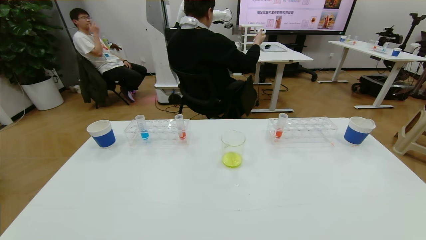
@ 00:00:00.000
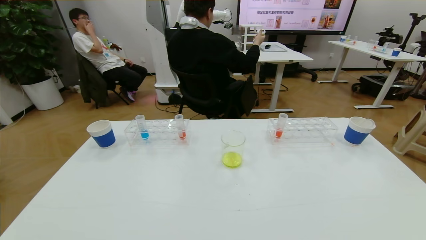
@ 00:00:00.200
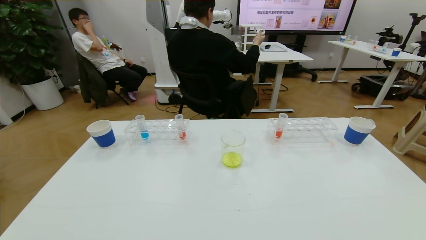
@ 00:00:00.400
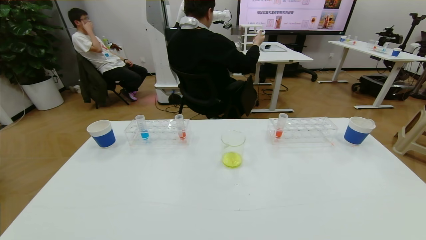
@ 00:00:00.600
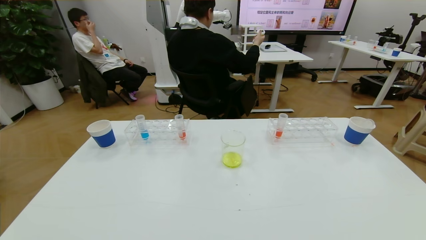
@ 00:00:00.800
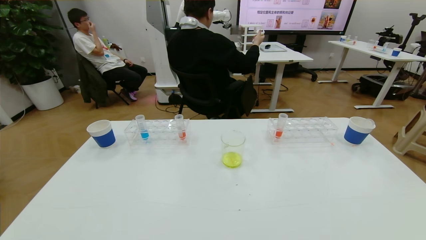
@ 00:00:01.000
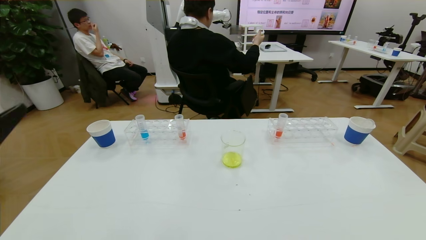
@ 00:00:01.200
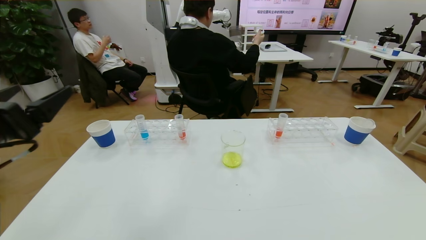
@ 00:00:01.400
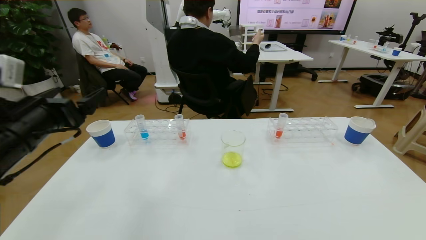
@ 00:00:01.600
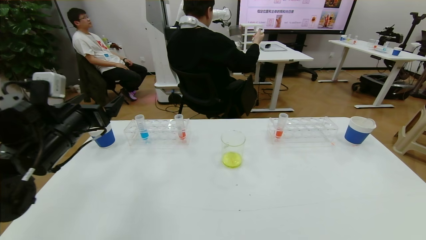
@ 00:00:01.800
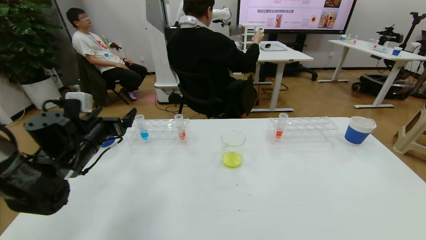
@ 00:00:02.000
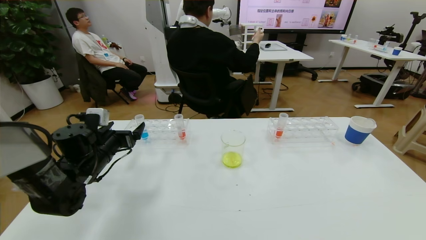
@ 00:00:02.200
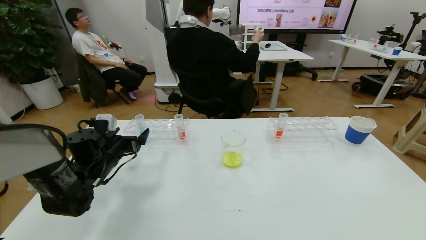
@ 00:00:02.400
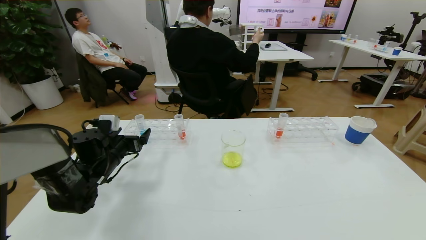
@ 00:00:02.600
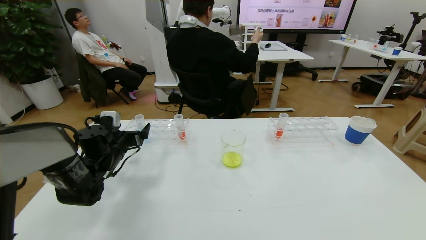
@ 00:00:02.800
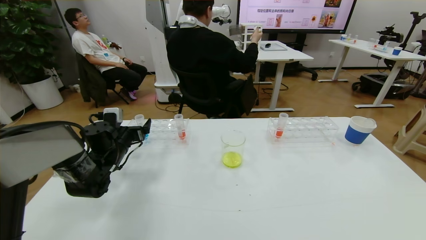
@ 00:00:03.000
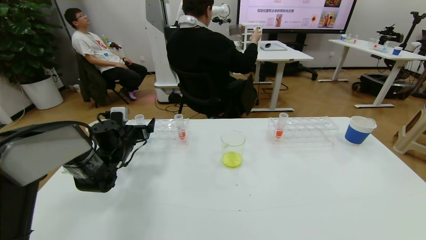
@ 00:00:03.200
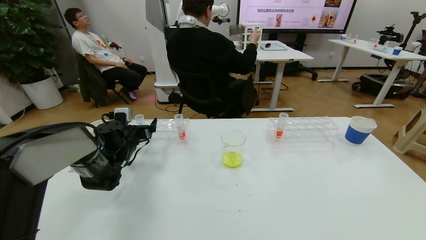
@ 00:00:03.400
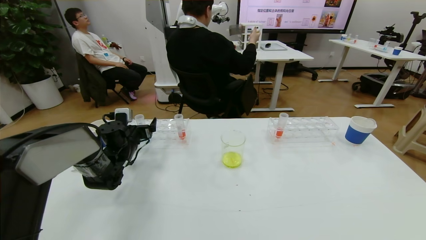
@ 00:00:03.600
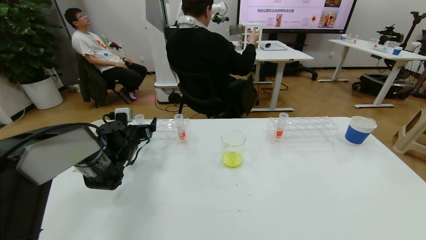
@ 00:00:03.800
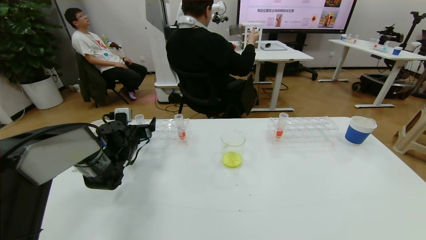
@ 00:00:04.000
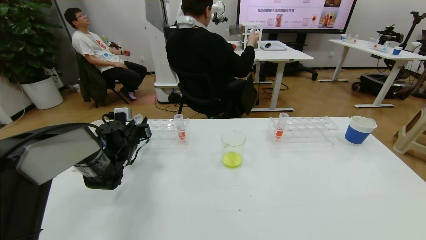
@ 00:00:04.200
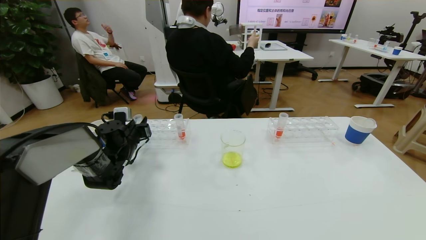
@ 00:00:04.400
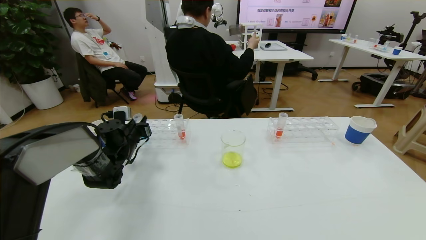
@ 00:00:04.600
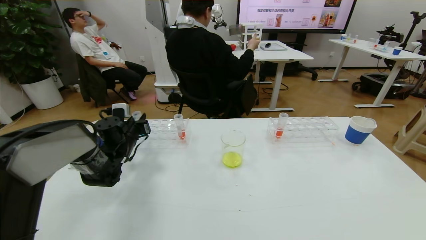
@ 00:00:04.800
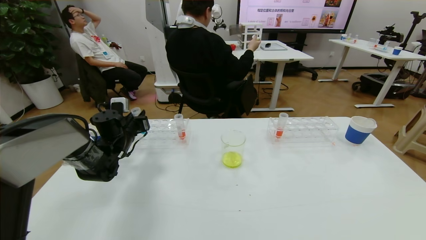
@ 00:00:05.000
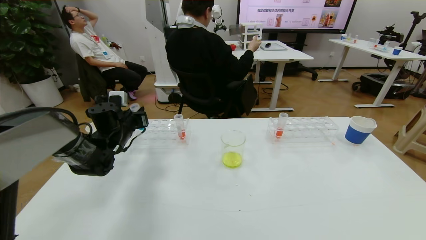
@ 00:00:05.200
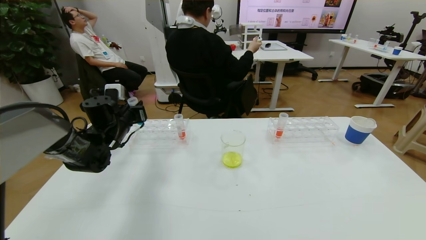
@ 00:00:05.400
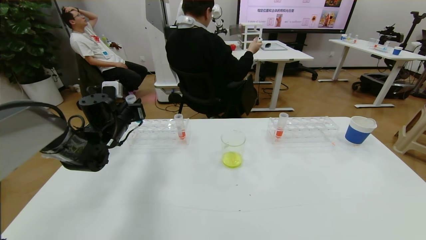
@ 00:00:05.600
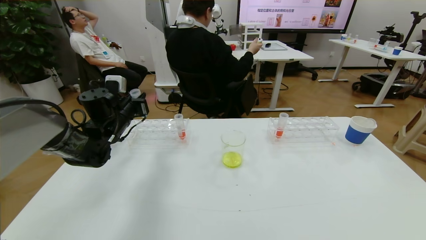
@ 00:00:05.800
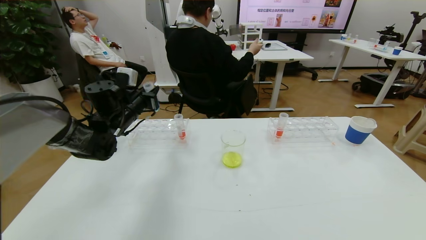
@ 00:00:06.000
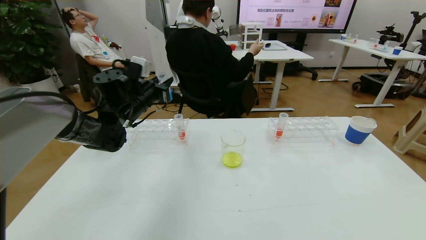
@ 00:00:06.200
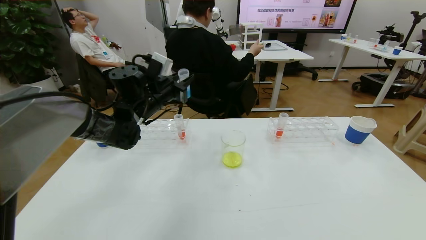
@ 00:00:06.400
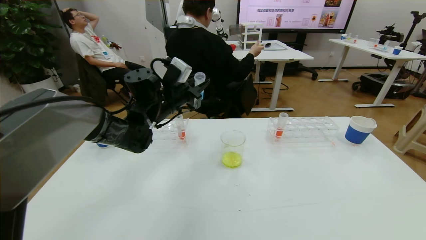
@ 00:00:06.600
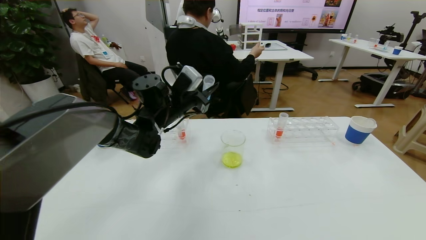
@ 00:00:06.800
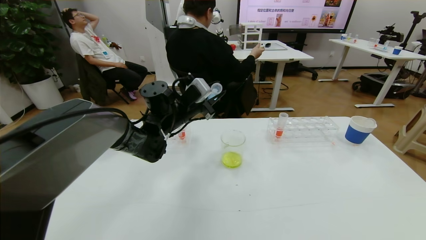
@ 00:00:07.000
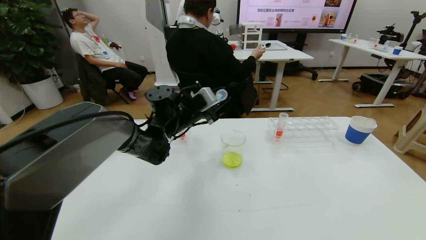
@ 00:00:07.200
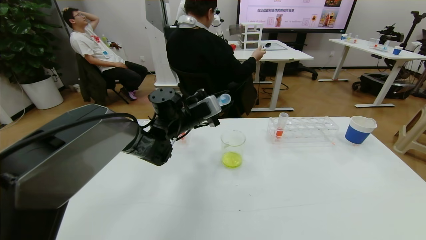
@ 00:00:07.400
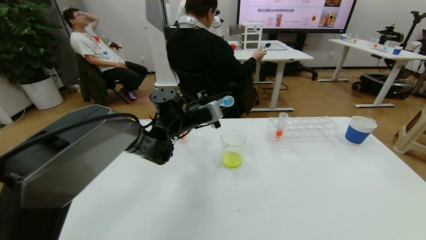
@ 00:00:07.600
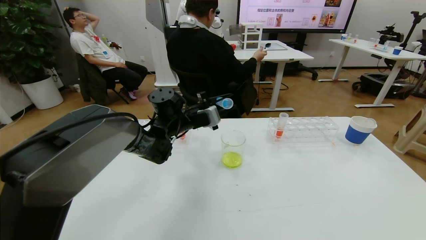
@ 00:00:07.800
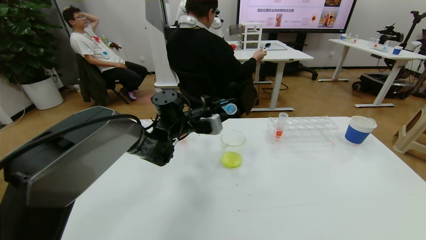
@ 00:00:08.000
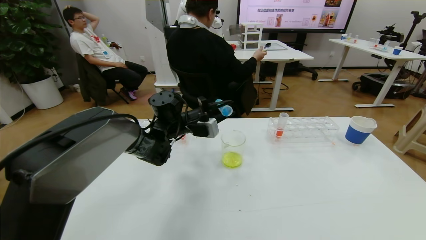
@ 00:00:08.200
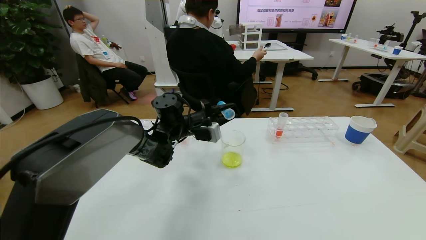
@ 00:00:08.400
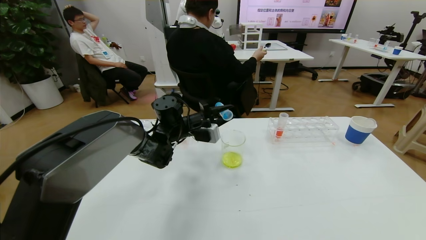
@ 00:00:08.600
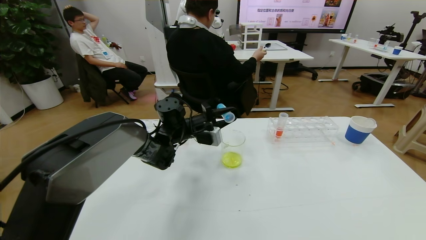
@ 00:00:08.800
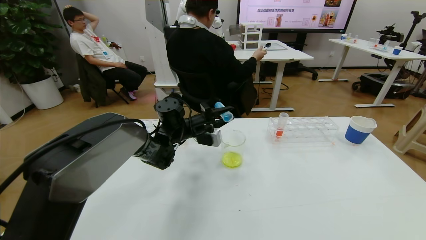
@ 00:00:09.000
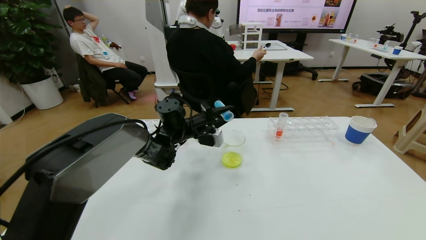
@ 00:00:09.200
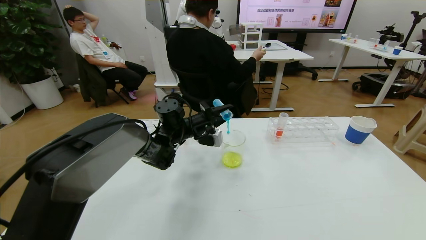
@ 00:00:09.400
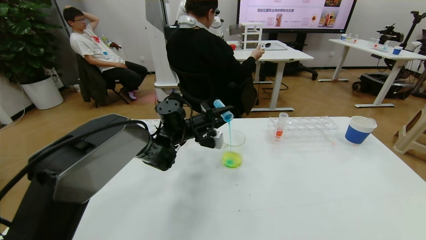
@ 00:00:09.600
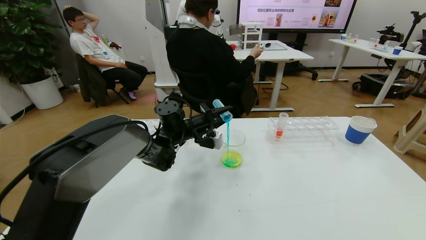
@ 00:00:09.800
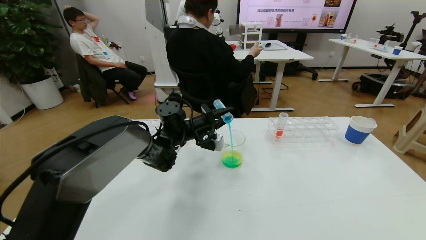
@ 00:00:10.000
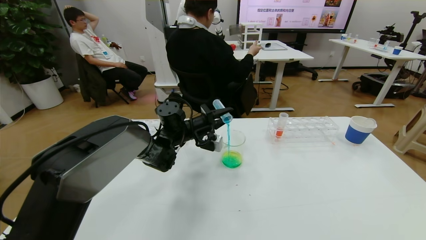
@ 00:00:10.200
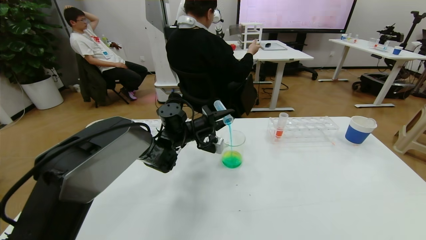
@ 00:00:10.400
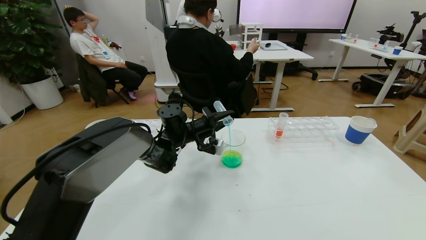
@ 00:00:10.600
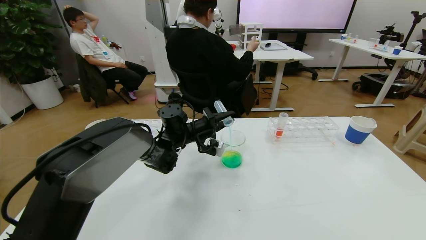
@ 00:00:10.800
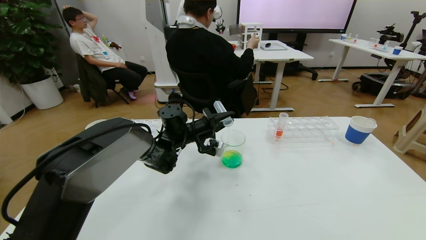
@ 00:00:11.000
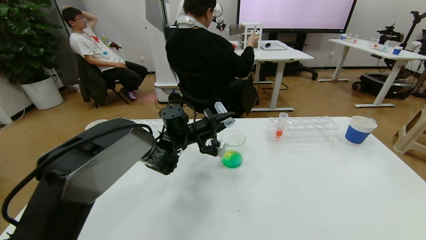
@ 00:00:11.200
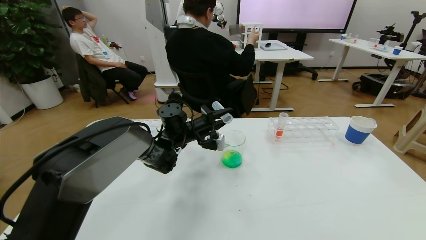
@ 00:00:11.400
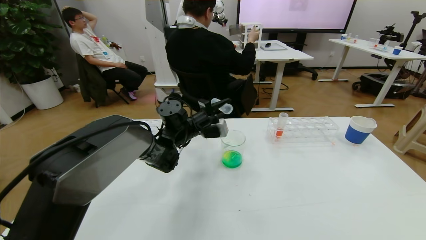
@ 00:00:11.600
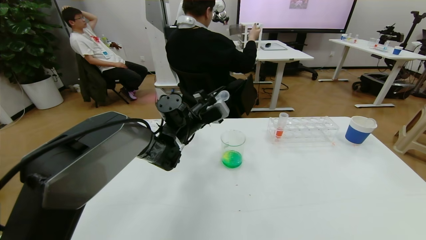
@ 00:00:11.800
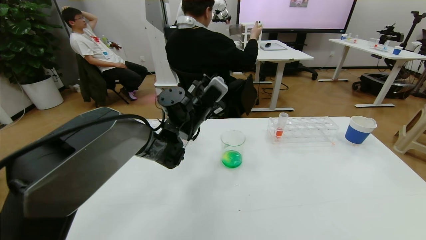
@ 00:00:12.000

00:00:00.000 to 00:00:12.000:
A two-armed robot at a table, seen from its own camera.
Task of the whole recording: pick up the test tube with yellow pigment and the test tube with blue pigment by grippers and pour them into the beaker.
00:00:00.000 to 00:00:01.600: The left gripper goes some 30 cm forward and upward.
00:00:01.600 to 00:00:03.000: The left gripper shifts about 25 cm downward and forward.
00:00:03.000 to 00:00:04.400: The left gripper closes.
00:00:04.400 to 00:00:06.000: The left gripper moves upward, approximately 10 cm.
00:00:06.000 to 00:00:07.600: The left gripper is displaced to the right by some 15 cm.
00:00:09.000 to 00:00:10.400: The grippers stay close to where they were, moving slightly.
00:00:10.400 to 00:00:12.000: The left gripper heads upward, covering some 5 cm.

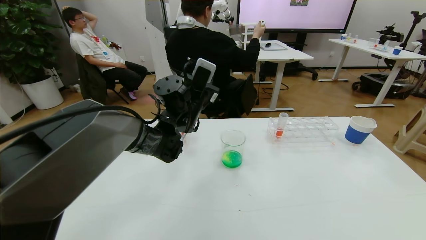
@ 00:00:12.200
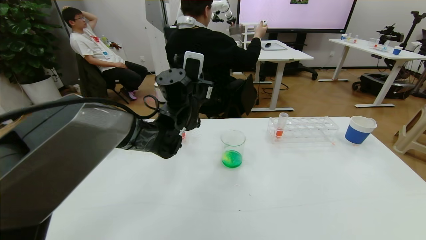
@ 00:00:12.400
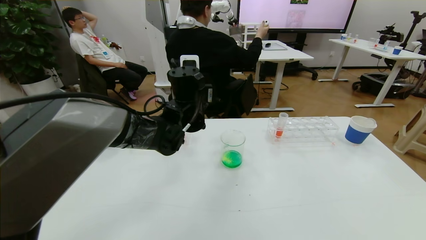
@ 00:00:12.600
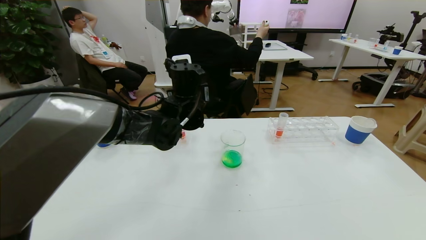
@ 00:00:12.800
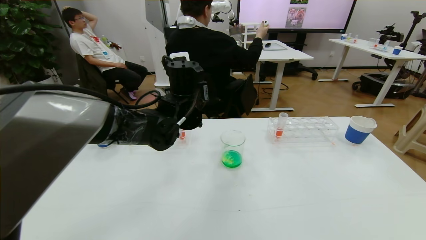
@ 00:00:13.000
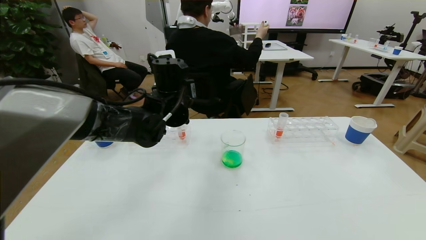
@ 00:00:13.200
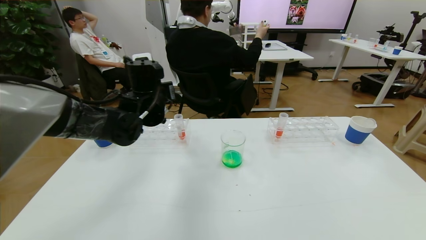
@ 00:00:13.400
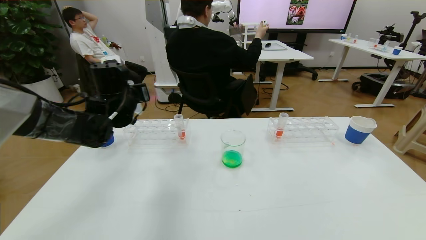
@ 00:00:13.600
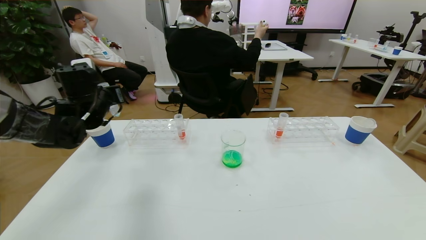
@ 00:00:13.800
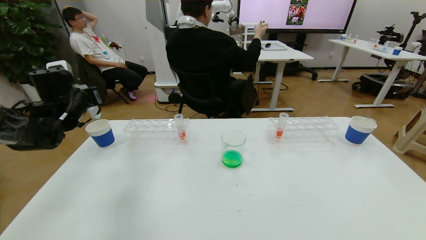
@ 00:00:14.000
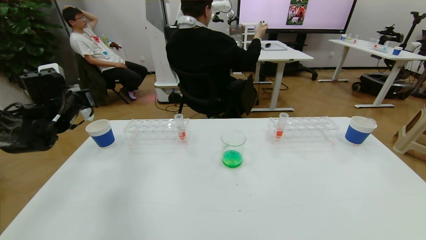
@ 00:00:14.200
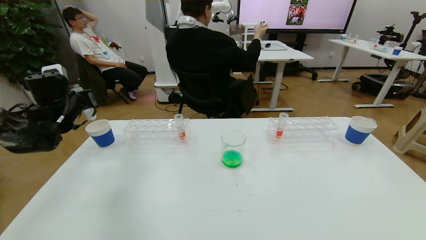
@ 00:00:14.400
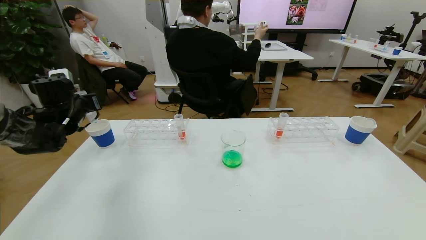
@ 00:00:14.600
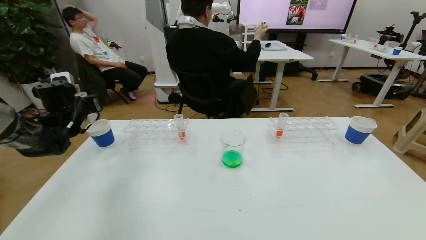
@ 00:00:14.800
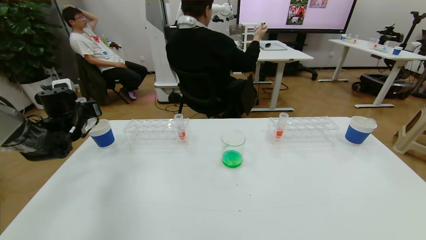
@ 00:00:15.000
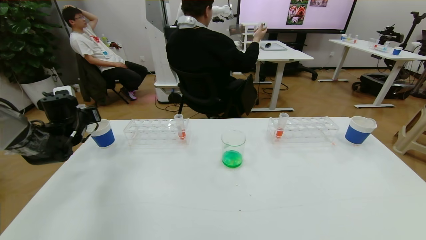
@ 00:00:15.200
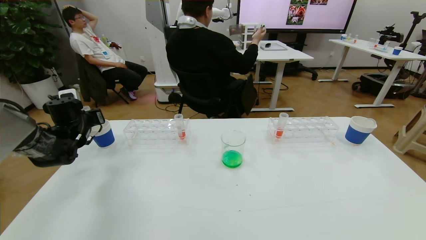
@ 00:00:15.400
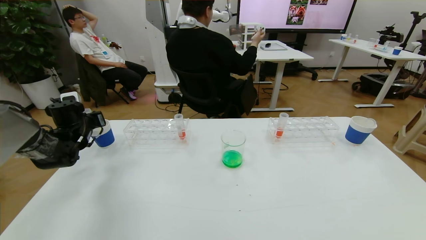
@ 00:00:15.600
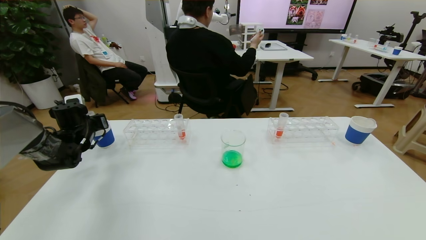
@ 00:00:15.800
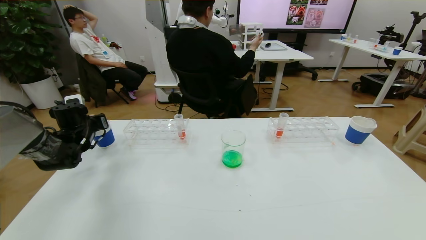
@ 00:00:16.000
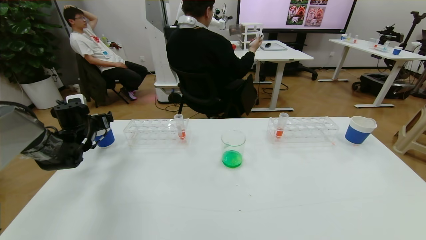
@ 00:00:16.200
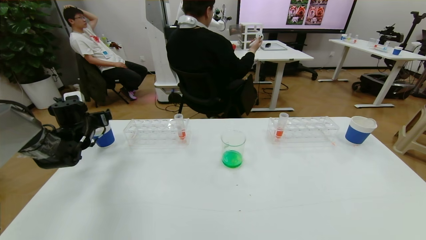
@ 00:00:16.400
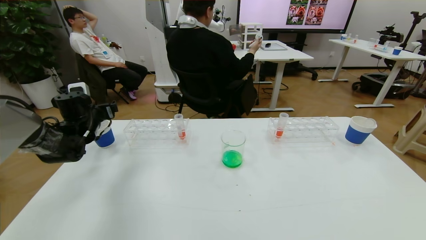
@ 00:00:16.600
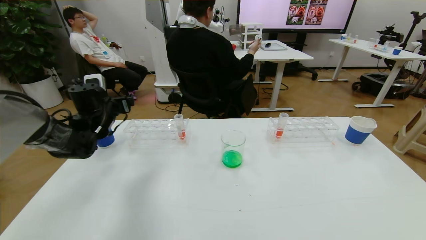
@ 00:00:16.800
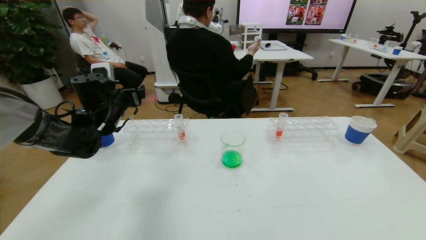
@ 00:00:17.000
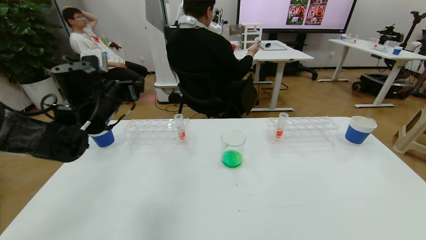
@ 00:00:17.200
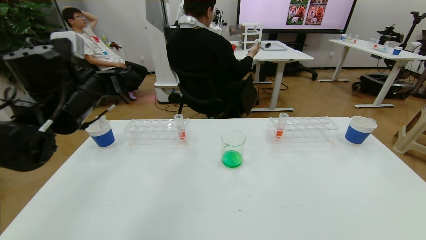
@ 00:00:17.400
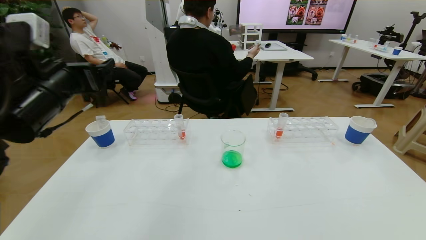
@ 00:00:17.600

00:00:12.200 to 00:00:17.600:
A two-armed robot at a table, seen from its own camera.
Task of the whole recording: pick up the test tube with yellow pigment and the test tube with blue pigment by grippers and pour them into the beaker.
00:00:12.200 to 00:00:13.600: The left gripper goes roughly 15 cm to the left.
00:00:13.600 to 00:00:15.000: The left gripper shifts some 15 cm to the left and downward.
00:00:15.000 to 00:00:16.200: The left gripper opens.
00:00:16.200 to 00:00:17.600: The left gripper goes some 30 cm upward, backward and to the right.
